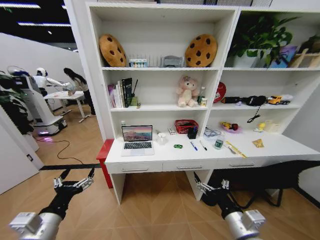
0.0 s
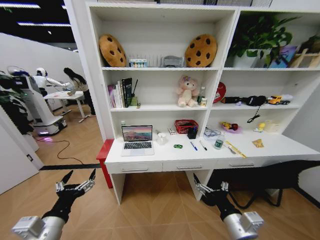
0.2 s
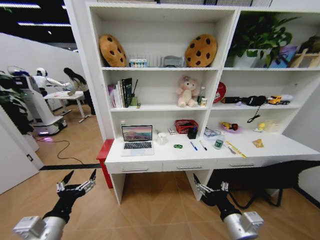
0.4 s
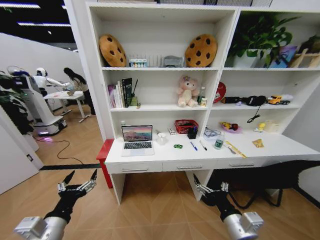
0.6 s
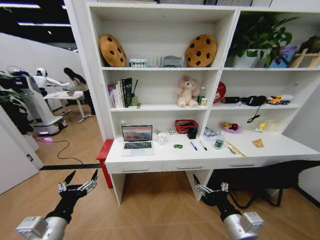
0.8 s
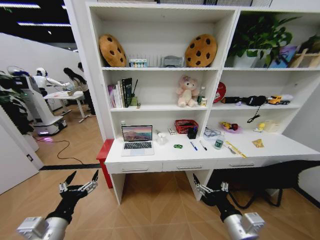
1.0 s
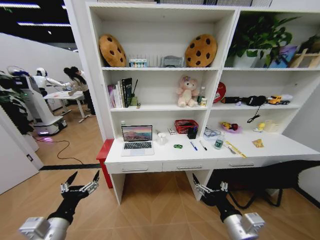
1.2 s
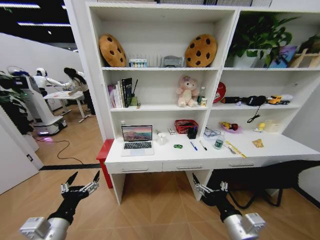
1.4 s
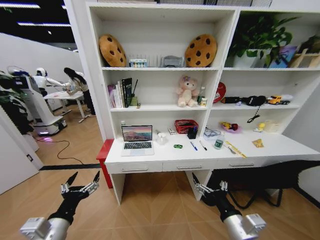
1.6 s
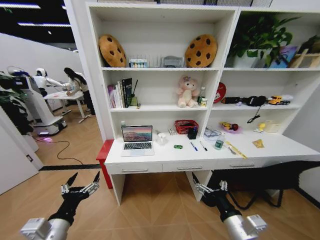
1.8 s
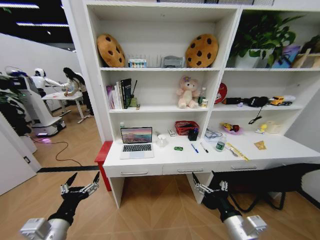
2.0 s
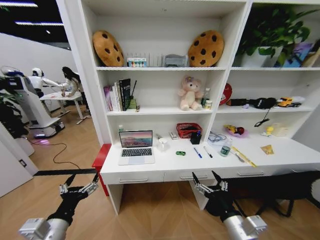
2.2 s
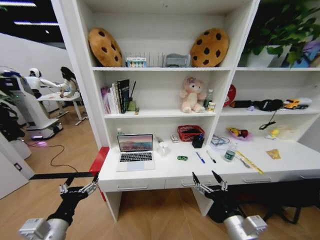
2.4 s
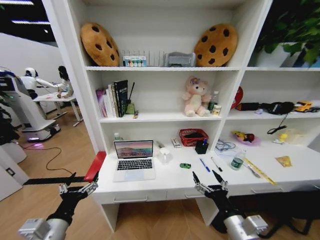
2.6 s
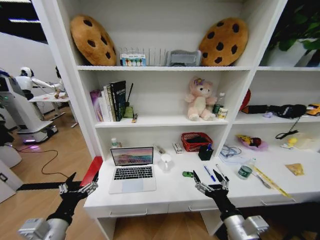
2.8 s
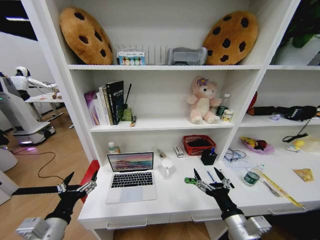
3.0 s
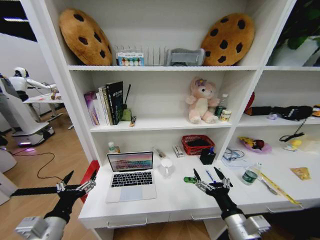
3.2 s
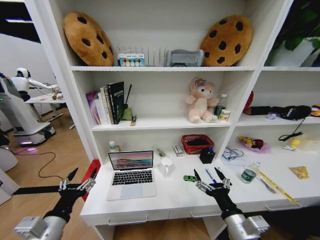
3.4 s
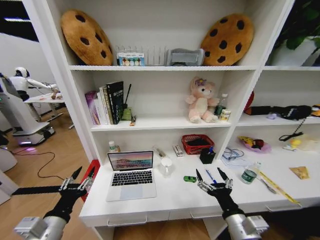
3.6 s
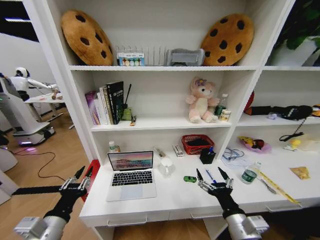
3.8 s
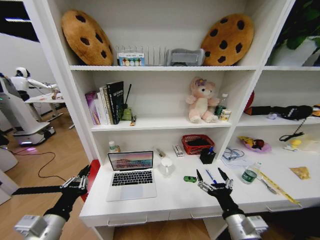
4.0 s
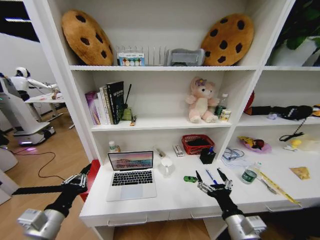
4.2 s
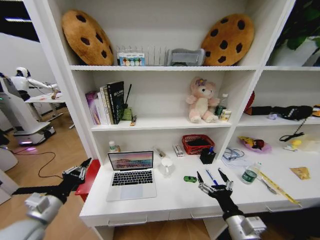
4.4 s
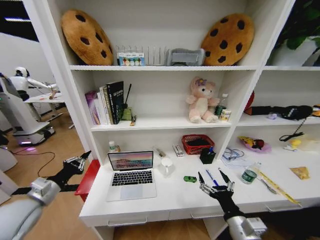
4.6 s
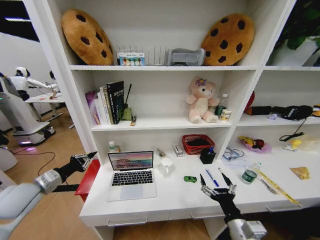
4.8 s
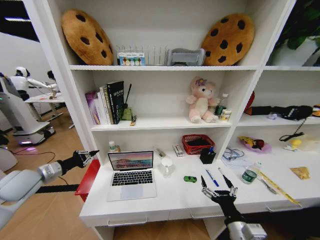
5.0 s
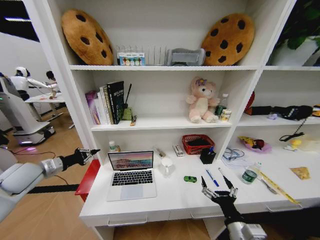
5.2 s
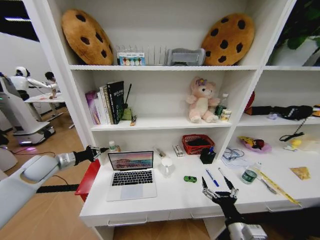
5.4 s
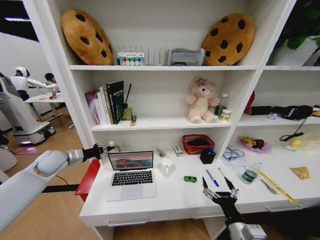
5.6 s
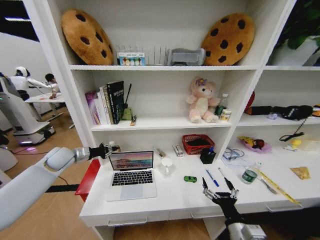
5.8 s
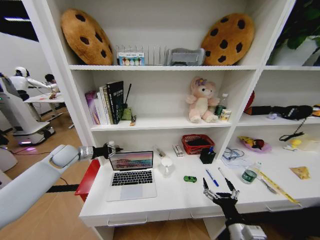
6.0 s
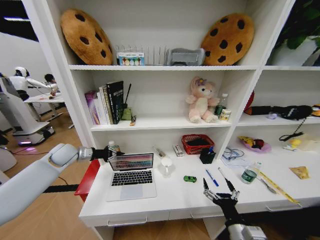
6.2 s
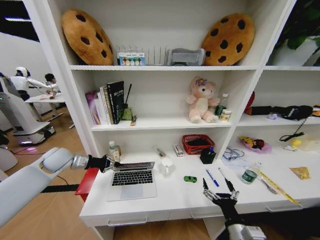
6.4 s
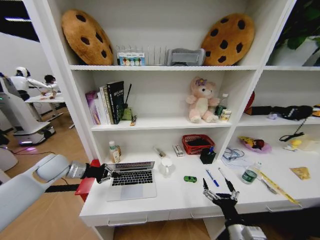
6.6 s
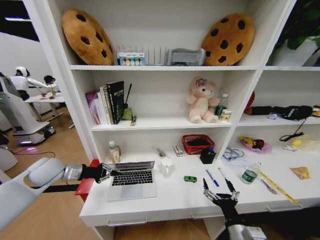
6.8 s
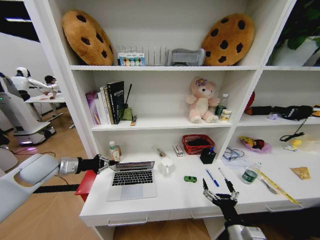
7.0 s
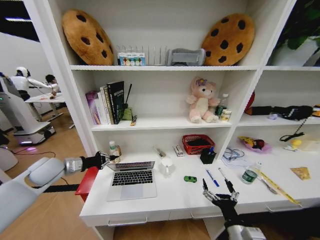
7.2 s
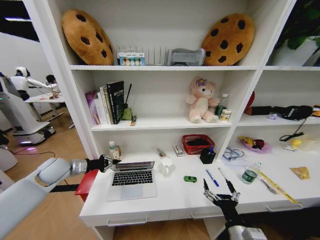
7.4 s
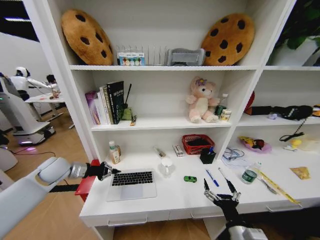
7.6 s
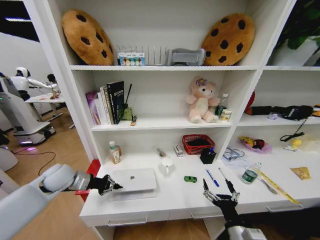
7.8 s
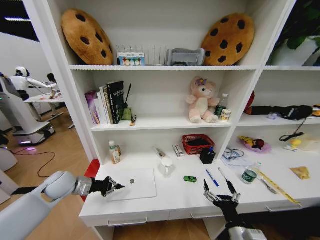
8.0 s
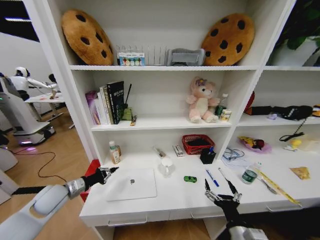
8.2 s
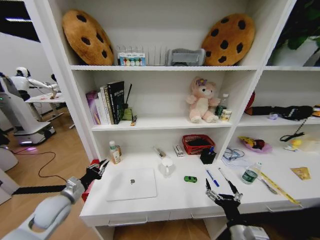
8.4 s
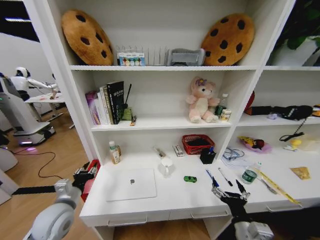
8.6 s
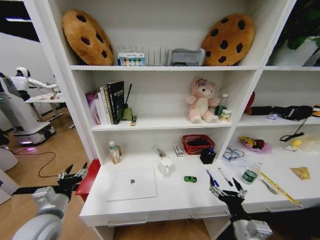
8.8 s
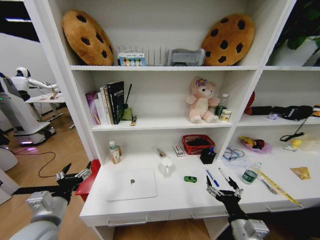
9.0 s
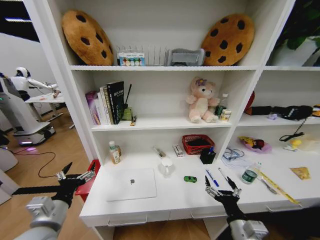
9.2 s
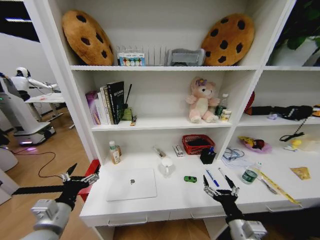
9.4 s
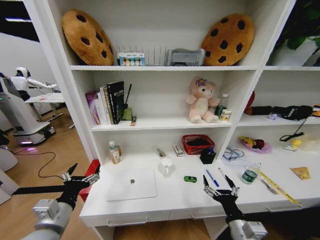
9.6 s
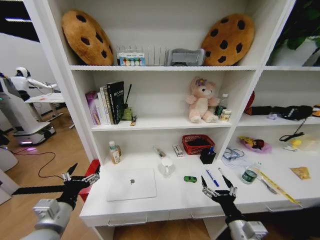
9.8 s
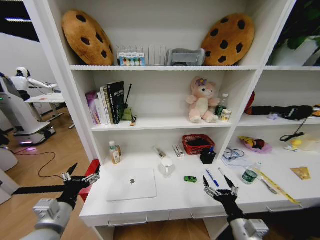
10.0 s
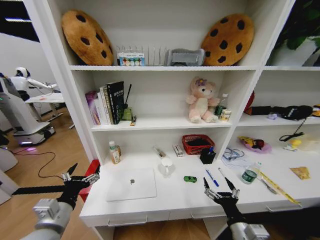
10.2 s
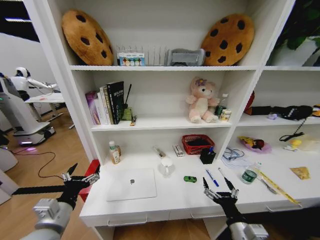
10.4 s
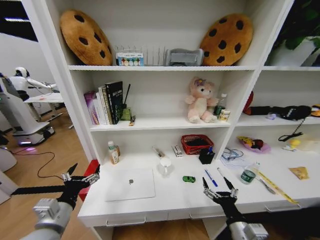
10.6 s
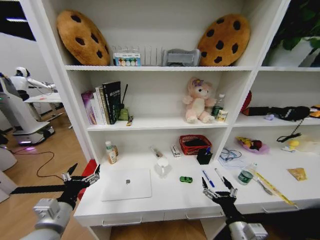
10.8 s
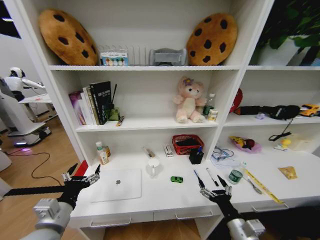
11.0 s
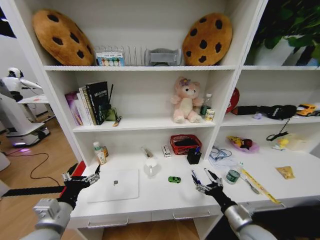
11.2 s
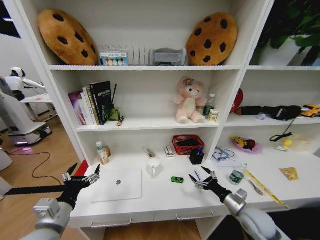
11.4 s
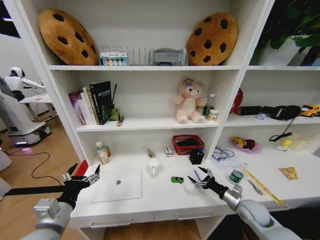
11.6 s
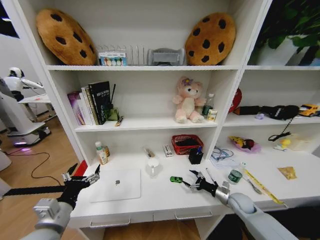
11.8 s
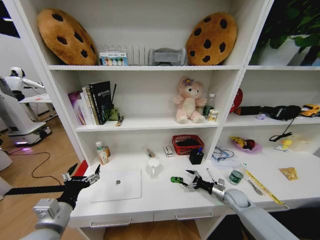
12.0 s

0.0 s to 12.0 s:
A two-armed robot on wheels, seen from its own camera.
Task of the whole recording: Organize the objects on the table.
3.0 to 4.4 s: The left gripper heads to the left, covering some 5 cm, and closes up.
4.4 to 6.0 s: The left gripper goes approximately 30 cm forward.
6.0 to 7.6 s: The left gripper moves backward, some 5 cm.
7.6 to 9.0 s: The left gripper is displaced backward by roughly 20 cm, and opens up.
9.0 to 10.4 s: The grippers stay close to where they were, moving slightly.
10.4 to 12.0 s: The right gripper shifts roughly 30 cm forward, to the right and downward.

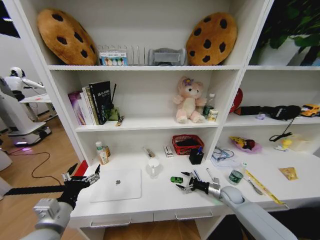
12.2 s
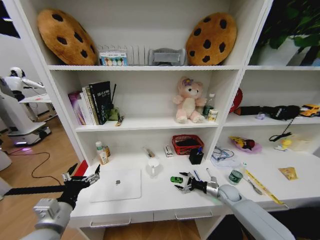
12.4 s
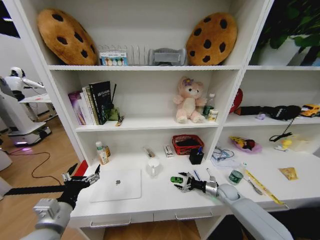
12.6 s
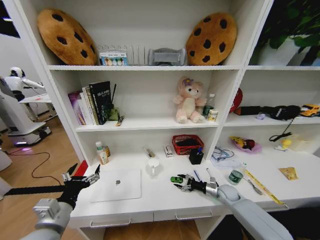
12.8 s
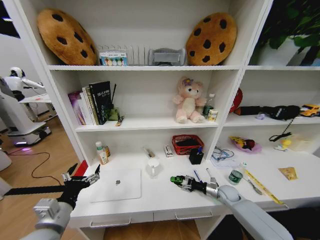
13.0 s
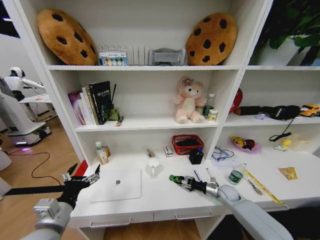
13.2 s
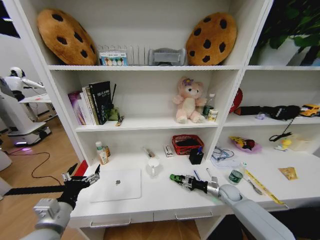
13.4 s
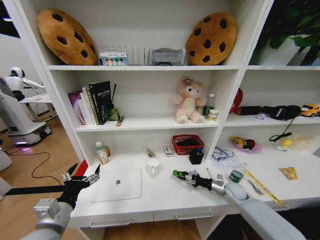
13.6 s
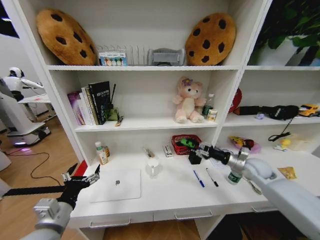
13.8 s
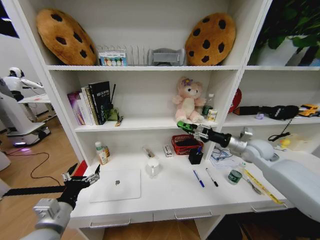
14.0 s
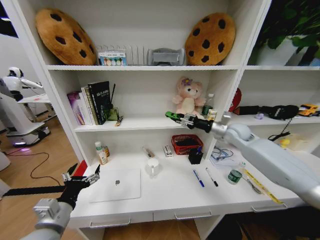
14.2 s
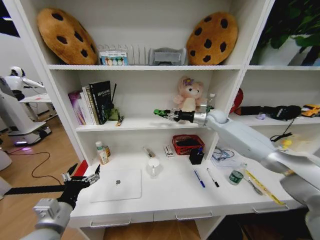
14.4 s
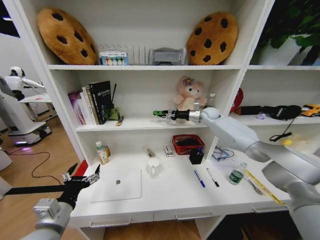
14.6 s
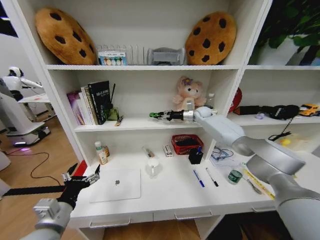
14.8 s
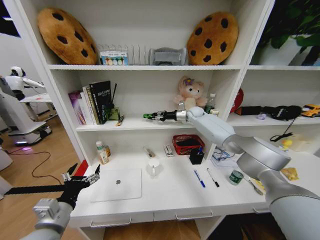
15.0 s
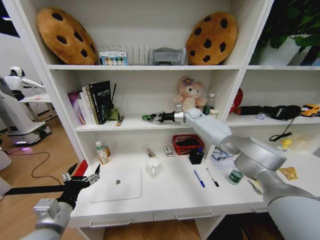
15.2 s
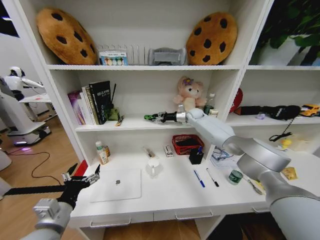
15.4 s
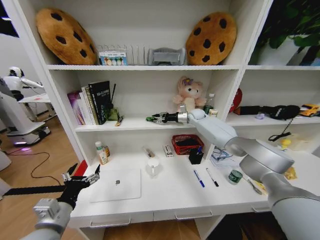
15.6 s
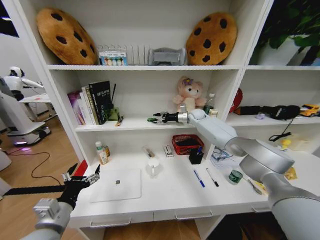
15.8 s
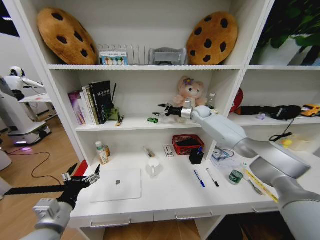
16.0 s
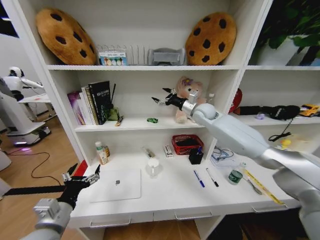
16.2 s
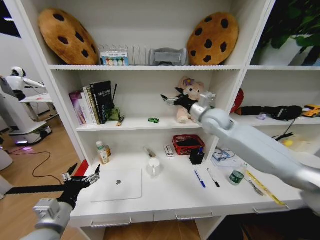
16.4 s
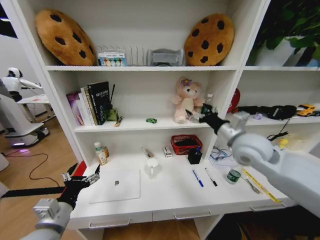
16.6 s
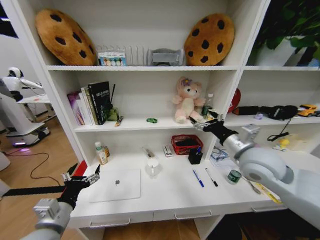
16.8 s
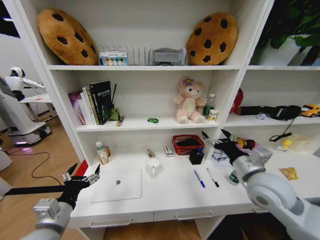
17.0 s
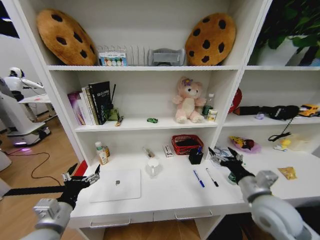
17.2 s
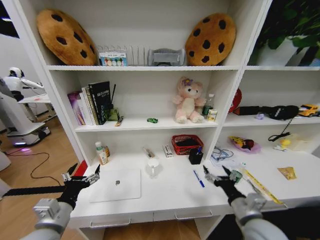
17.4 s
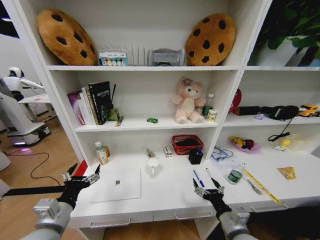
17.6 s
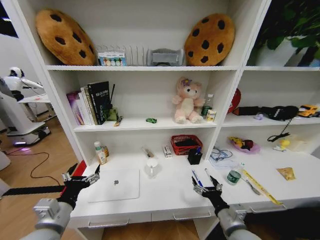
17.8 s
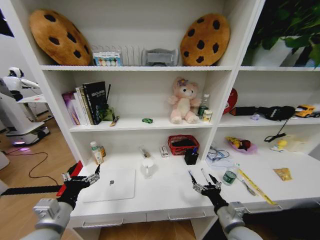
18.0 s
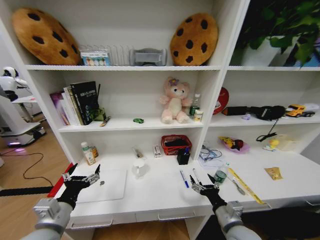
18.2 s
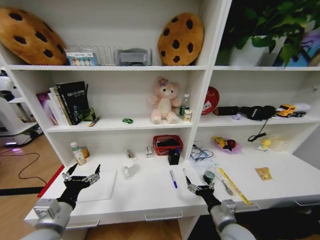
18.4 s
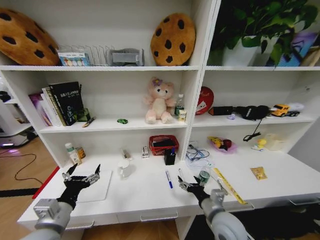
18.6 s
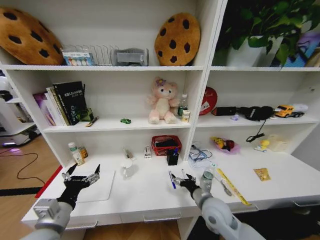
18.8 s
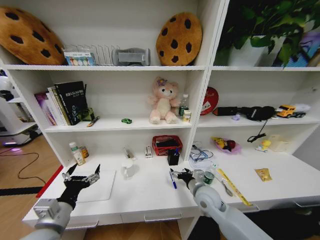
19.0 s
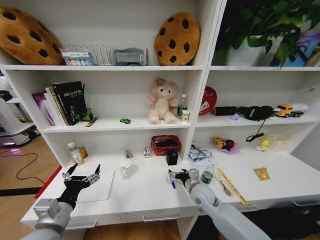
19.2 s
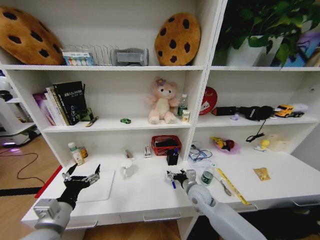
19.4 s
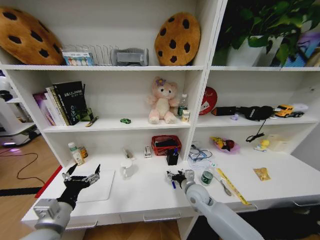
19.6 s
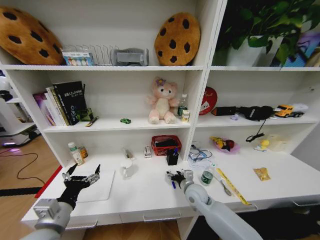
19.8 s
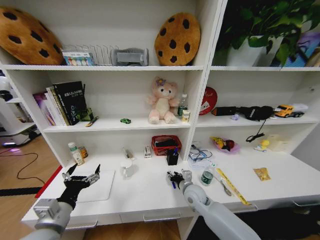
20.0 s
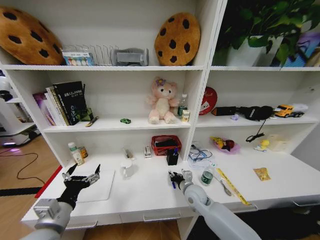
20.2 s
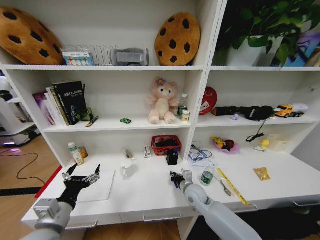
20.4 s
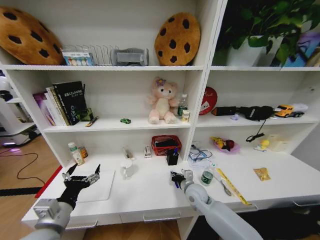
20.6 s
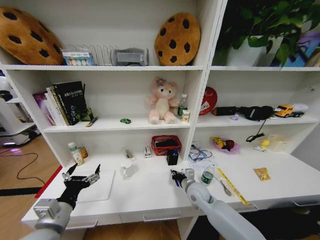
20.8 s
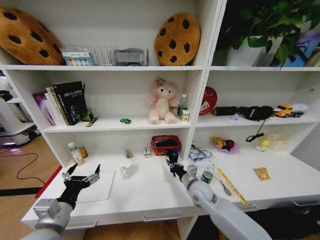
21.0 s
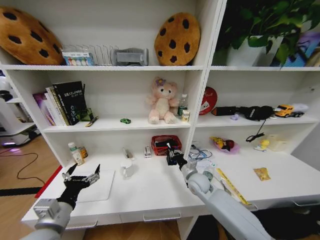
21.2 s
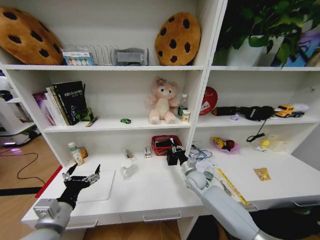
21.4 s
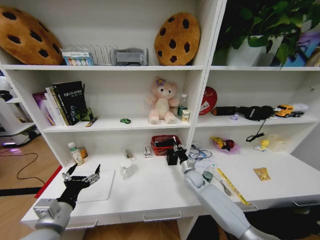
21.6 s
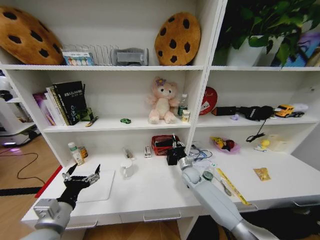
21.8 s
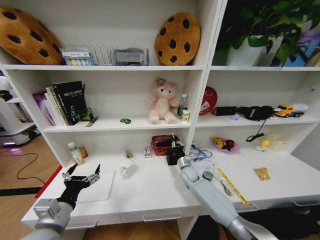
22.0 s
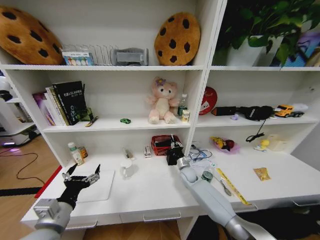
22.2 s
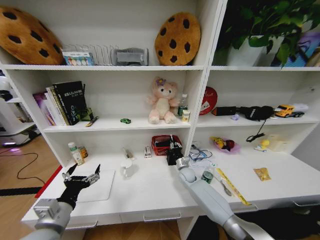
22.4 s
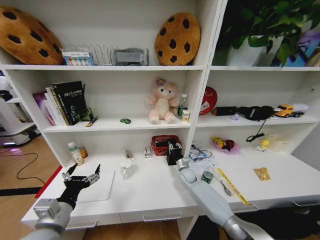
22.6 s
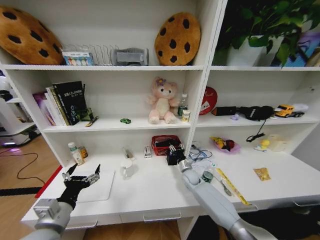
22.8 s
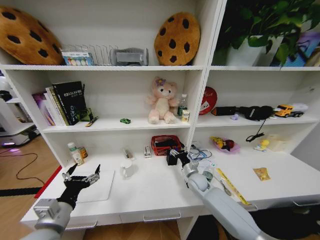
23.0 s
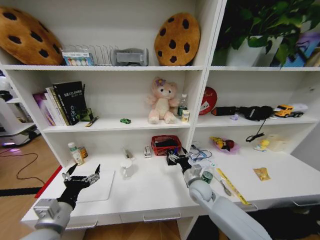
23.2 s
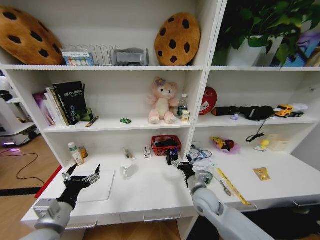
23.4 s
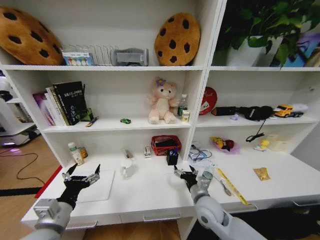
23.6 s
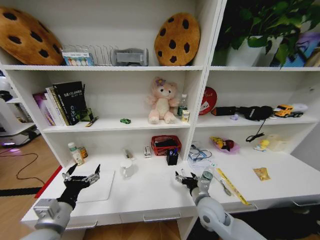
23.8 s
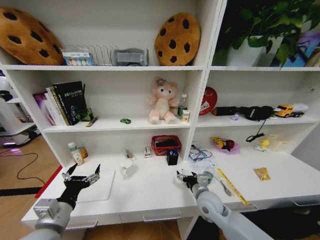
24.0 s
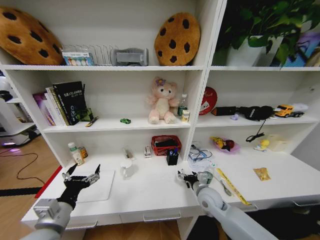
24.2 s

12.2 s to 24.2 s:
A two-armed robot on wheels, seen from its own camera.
Task of the whole recording: Organize the objects on the table.
12.2 to 13.8 s: The right gripper is displaced upward by some 15 cm, and closes.
13.8 to 15.2 s: The right gripper travels forward, to the left and upward by some 40 cm.
15.2 to 16.6 s: The right gripper is displaced backward by about 30 cm, and opens up.
16.6 to 18.2 s: The right gripper shifts about 30 cm downward and backward.
18.2 to 19.8 s: The right gripper heads forward and to the left, covering approximately 20 cm.
19.8 to 21.2 s: The right gripper ends up roughly 5 cm from where it was, and closes.
21.2 to 22.6 s: The right gripper shifts roughly 10 cm forward and downward.
22.6 to 24.2 s: The right gripper heads backward and upward, covering about 15 cm, and opens up.
